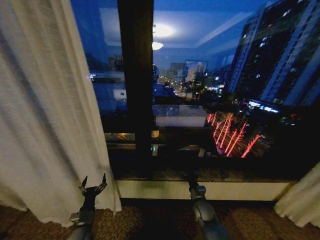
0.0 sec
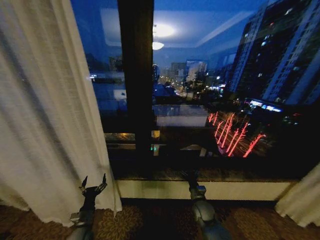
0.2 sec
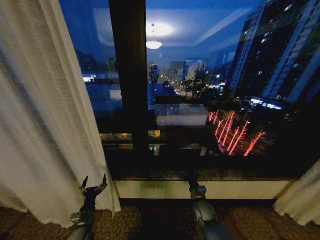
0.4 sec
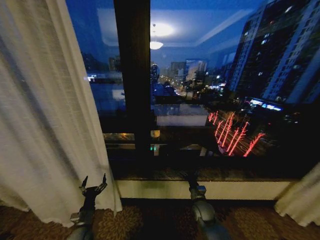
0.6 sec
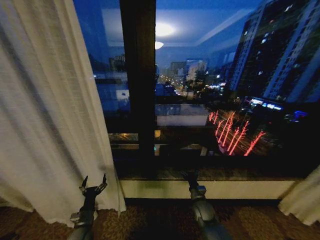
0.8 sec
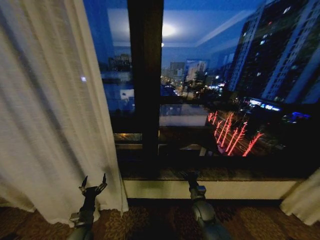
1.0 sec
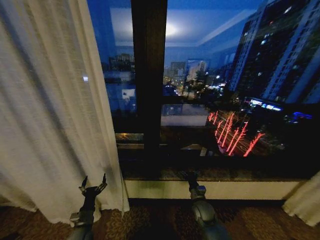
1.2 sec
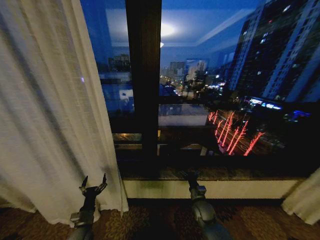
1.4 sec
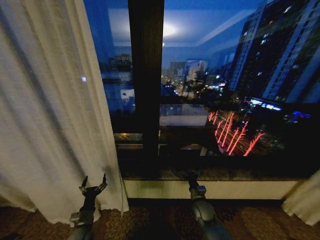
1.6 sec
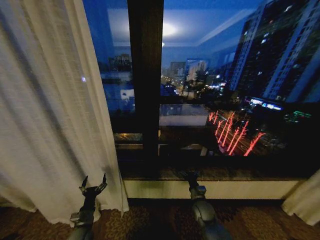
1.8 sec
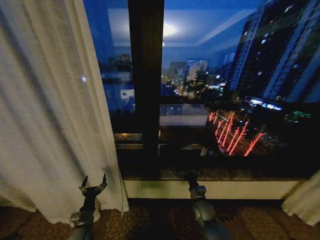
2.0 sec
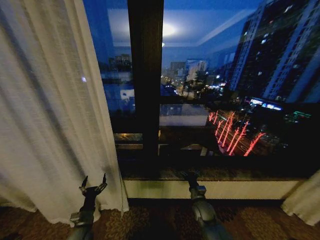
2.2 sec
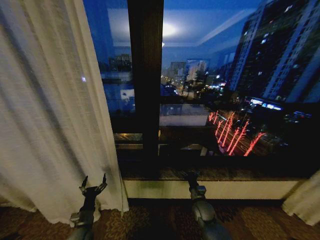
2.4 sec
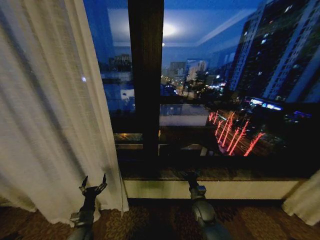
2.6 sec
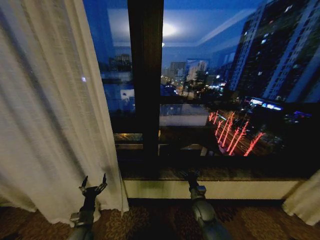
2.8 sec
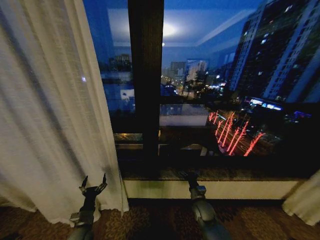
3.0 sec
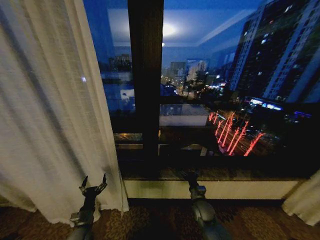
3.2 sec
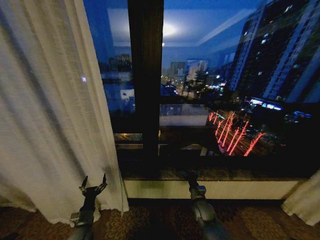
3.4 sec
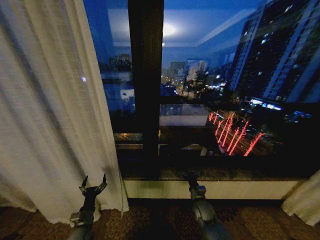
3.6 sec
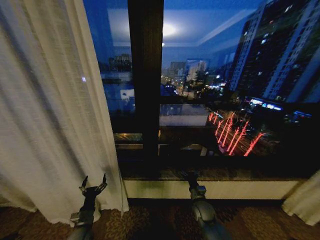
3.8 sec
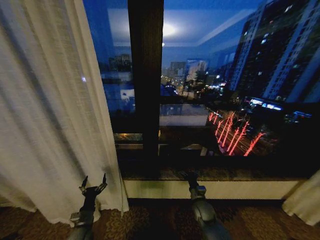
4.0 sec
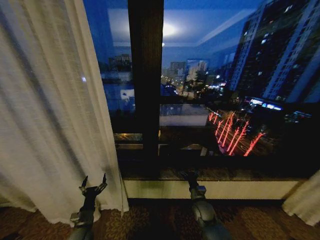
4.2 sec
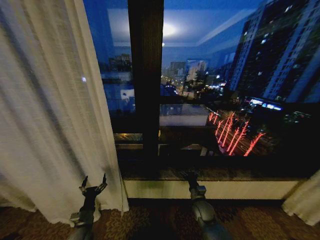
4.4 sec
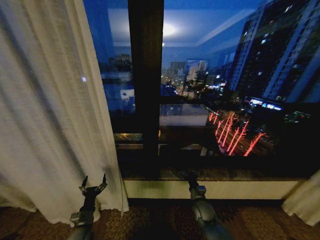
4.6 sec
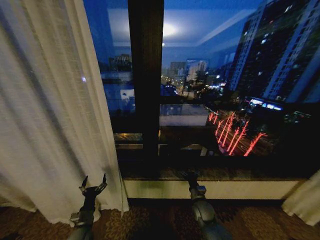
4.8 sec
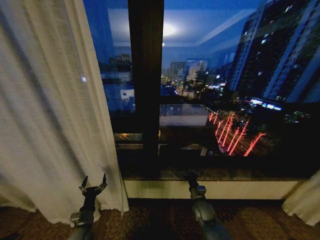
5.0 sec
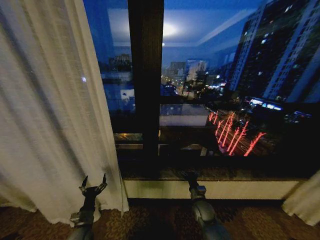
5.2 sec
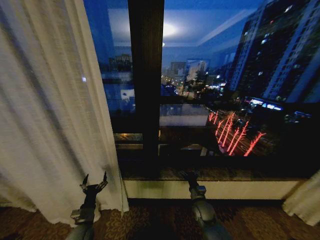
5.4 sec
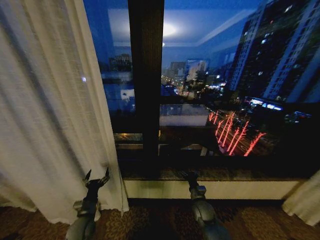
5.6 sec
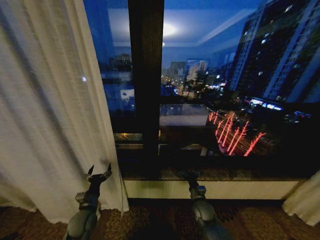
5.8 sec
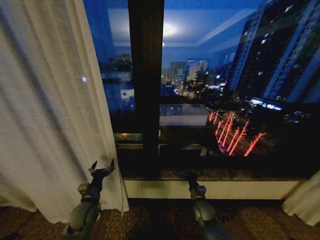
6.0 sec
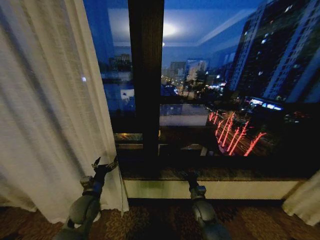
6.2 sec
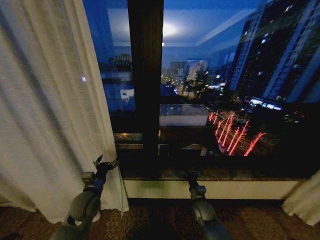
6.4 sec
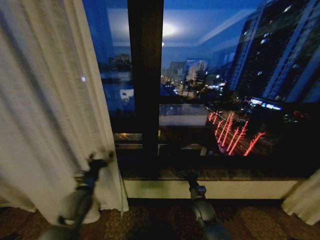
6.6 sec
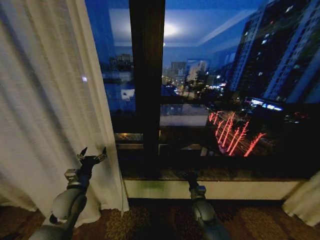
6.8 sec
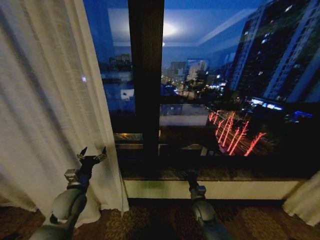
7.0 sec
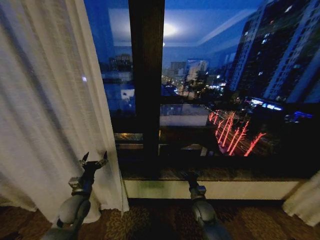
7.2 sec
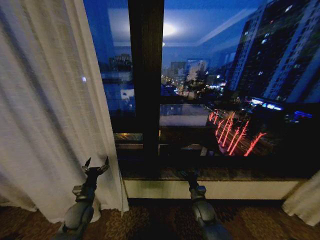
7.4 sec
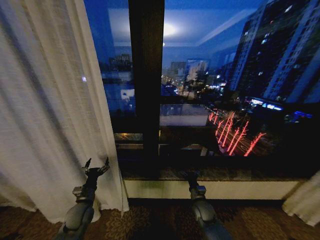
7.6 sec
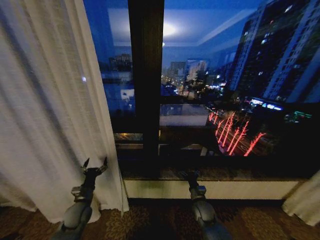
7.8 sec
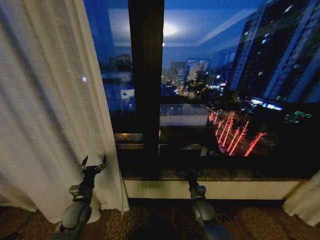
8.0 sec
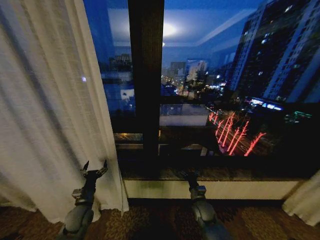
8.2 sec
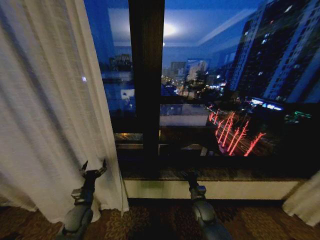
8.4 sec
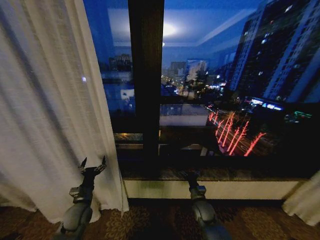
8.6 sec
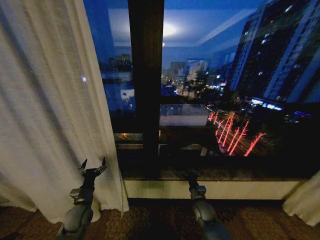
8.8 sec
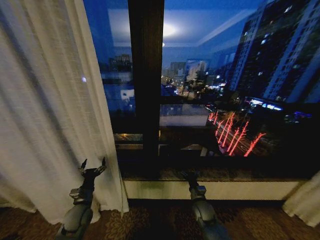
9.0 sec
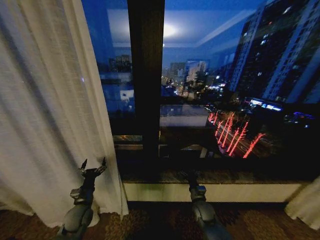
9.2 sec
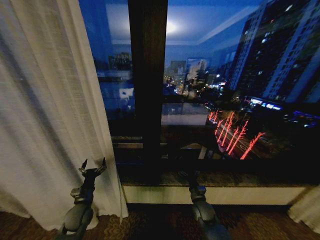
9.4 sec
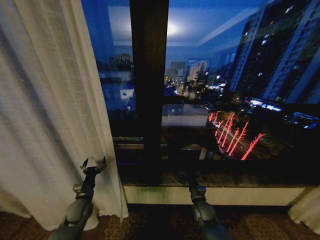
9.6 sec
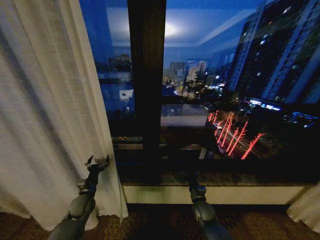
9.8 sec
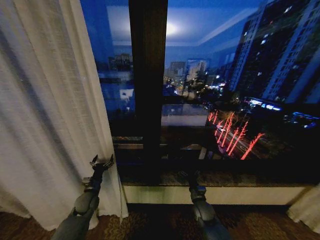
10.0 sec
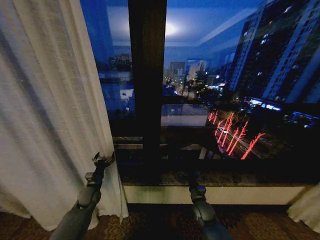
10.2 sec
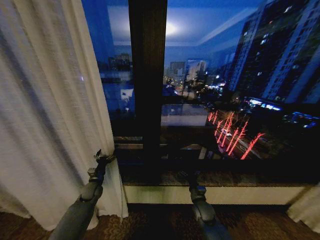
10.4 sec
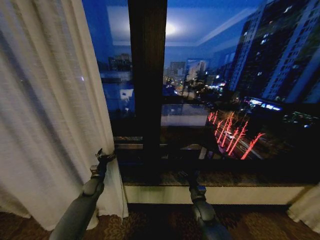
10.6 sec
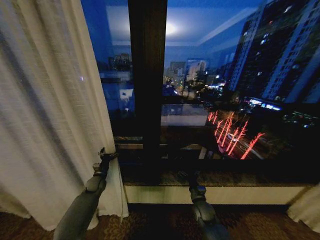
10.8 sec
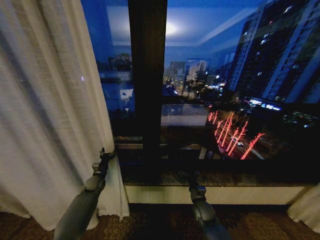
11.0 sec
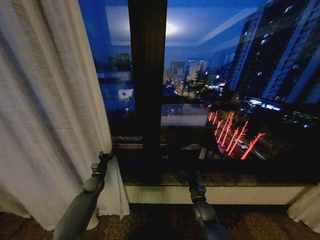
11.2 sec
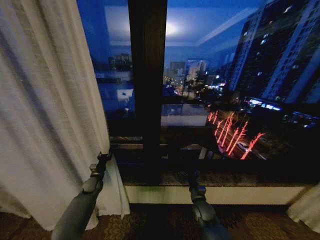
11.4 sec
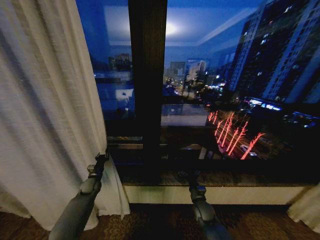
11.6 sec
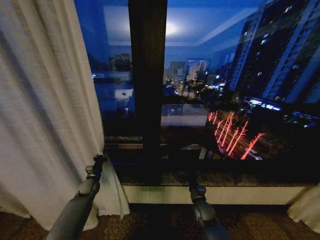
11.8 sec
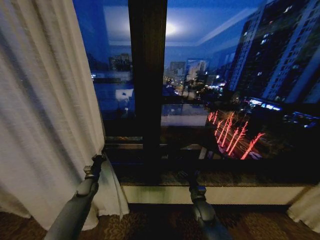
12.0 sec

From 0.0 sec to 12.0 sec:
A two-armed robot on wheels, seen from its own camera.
Task of the whole recording: Open the curtains by pulling them apart, changing their state from closed to fully open.
From 0.0 sec to 4.4 sec: Both grippers stay about where they are.
From 4.4 sec to 6.0 sec: The left gripper heads upward and forward, covering about 10 cm.
From 6.0 sec to 7.6 sec: The left gripper moves approximately 10 cm upward and comes back.
From 7.6 sec to 9.0 sec: The grippers make only small movements.
From 9.0 sec to 10.4 sec: The left gripper heads forward, covering roughly 10 cm.
From 10.4 sec to 12.0 sec: The left gripper closes.

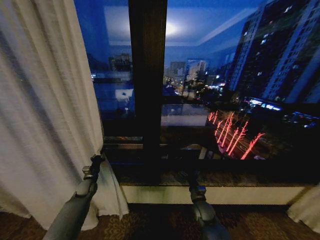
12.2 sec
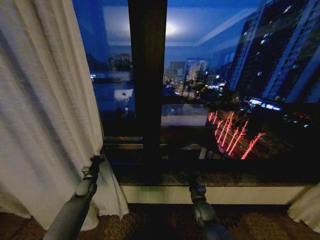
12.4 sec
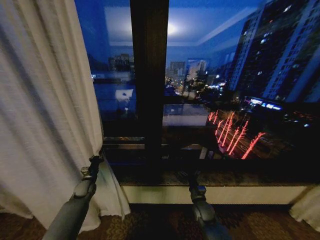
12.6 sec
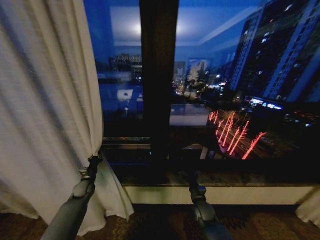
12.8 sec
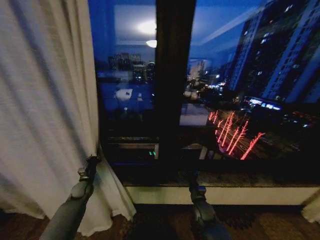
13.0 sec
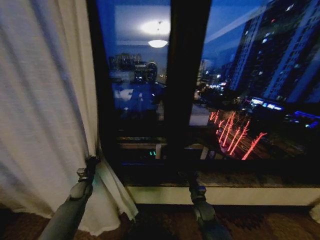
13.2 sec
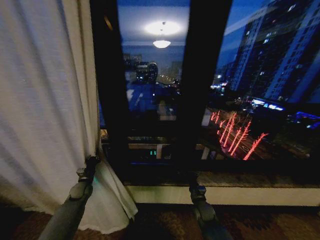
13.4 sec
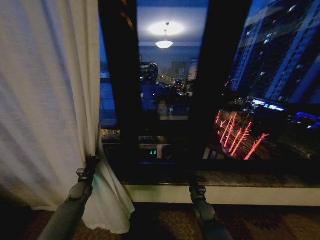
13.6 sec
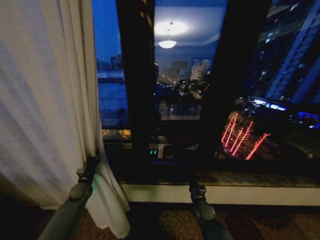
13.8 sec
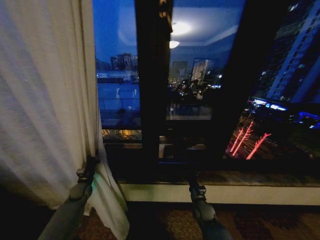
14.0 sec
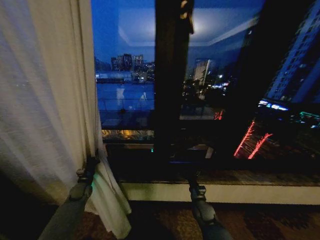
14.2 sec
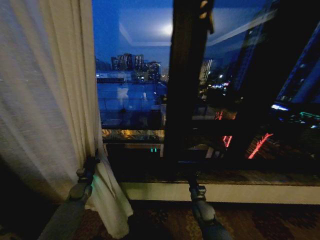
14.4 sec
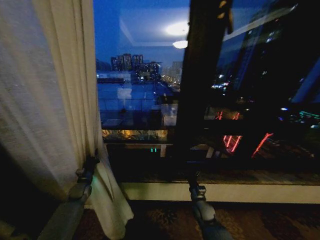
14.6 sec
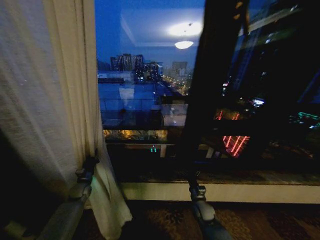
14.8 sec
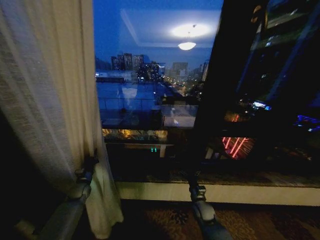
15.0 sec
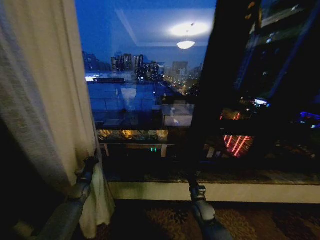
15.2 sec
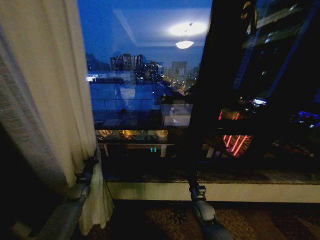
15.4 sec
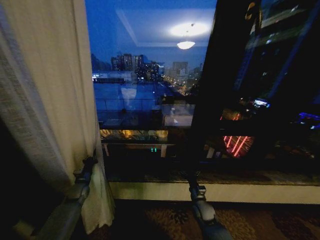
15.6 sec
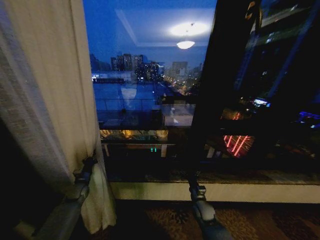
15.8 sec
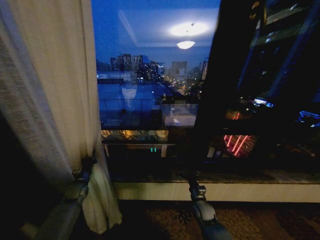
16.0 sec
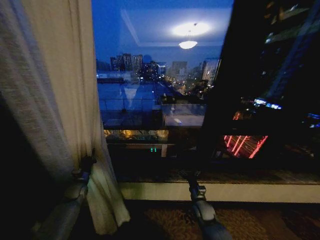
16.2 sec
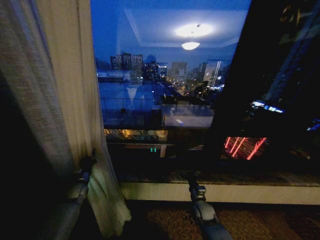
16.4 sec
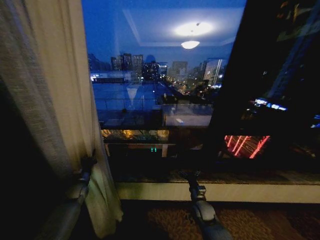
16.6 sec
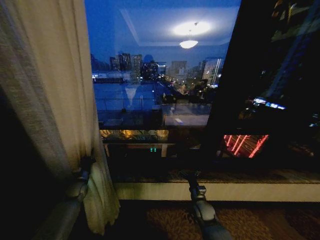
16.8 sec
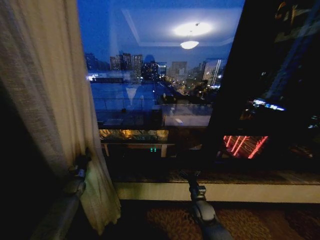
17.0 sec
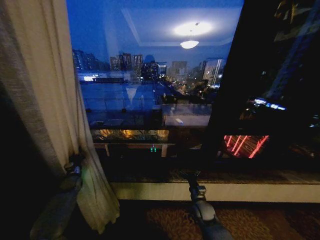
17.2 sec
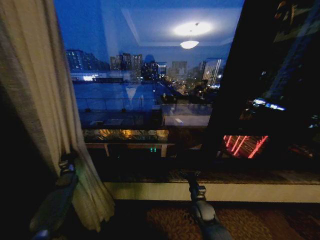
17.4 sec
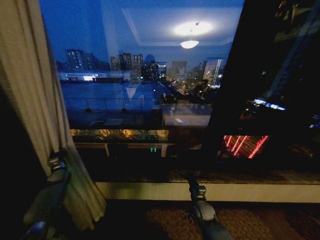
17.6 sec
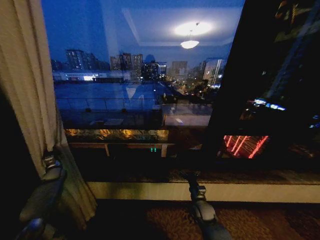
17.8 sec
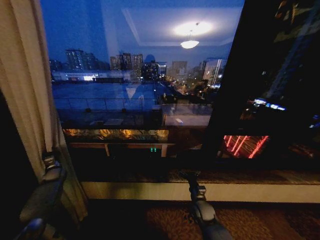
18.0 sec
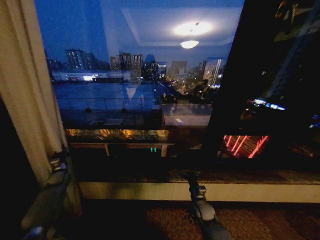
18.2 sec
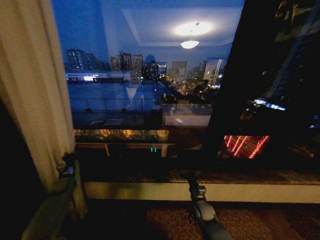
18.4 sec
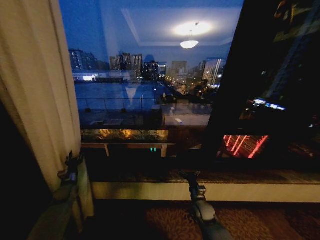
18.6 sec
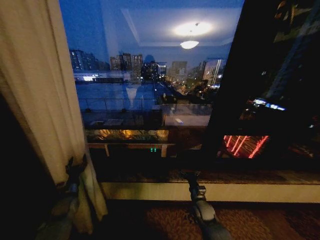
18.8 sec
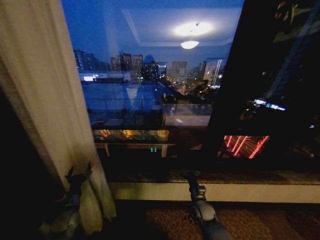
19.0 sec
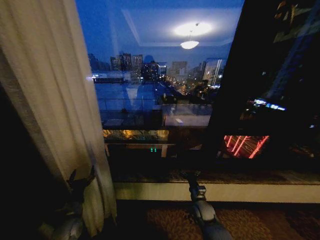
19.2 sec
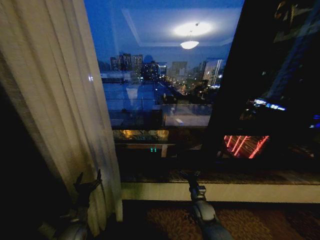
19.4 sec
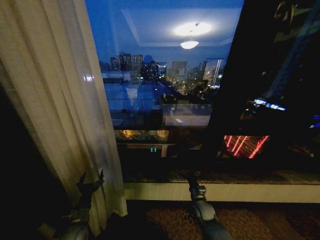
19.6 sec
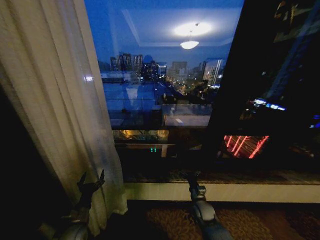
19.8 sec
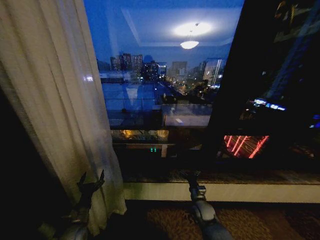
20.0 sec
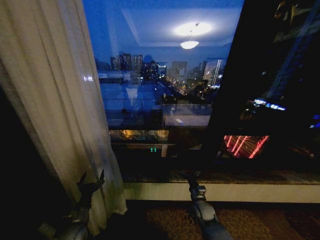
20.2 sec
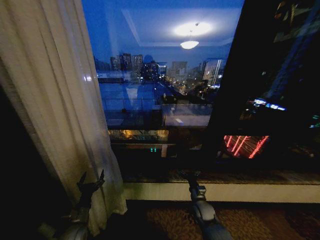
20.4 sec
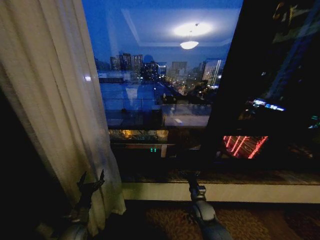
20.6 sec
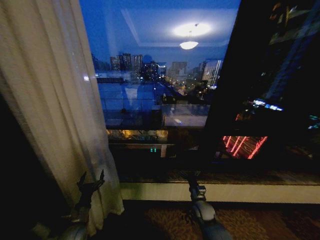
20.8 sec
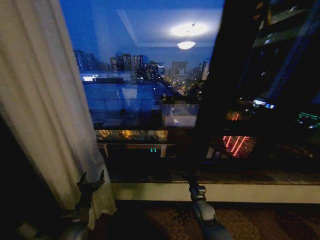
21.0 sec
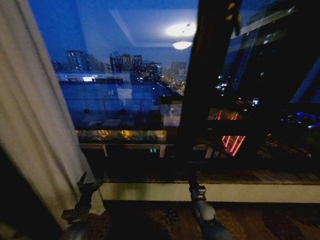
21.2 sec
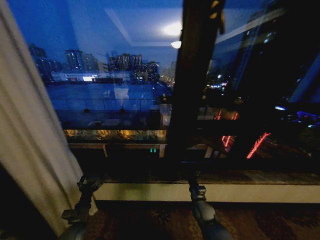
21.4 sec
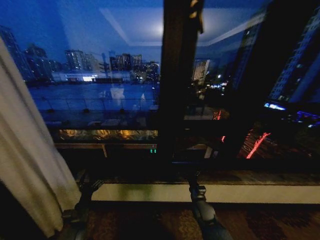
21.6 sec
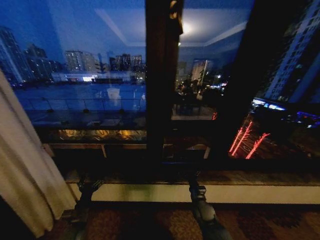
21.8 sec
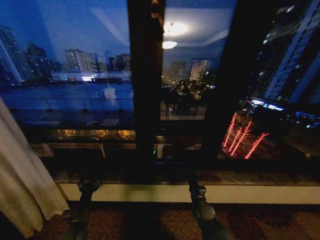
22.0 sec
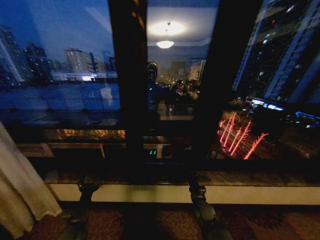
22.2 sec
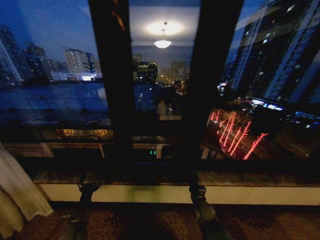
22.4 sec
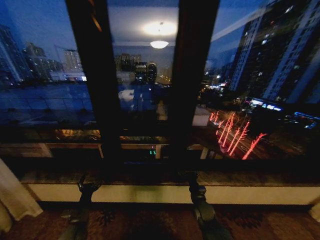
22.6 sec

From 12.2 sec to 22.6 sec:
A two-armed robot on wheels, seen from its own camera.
Task of the whole recording: Open the curtains by pulling them apart, changing their state from closed to fully open.
From 15.2 sec to 16.6 sec: Both grippers stay put.
From 16.6 sec to 18.2 sec: The left gripper shifts about 15 cm to the left and forward.
From 18.2 sec to 19.6 sec: The left gripper heads backward and to the right, covering roughly 30 cm, and opens.
